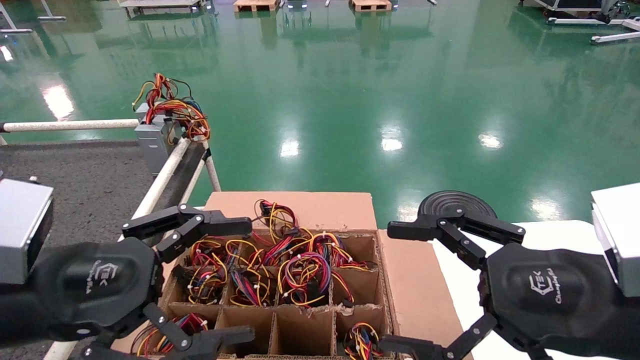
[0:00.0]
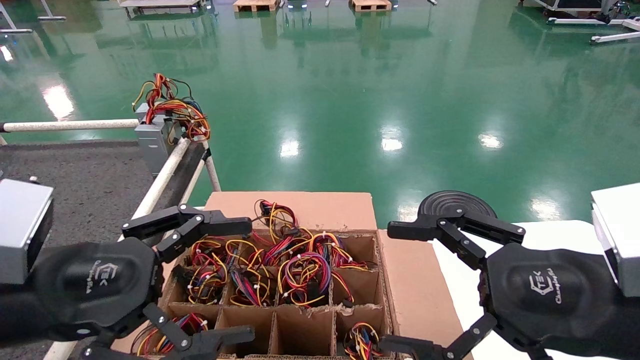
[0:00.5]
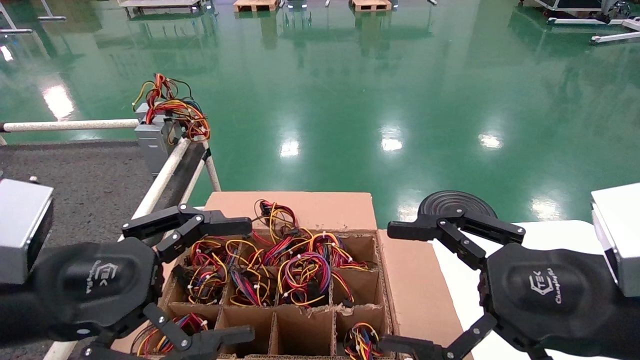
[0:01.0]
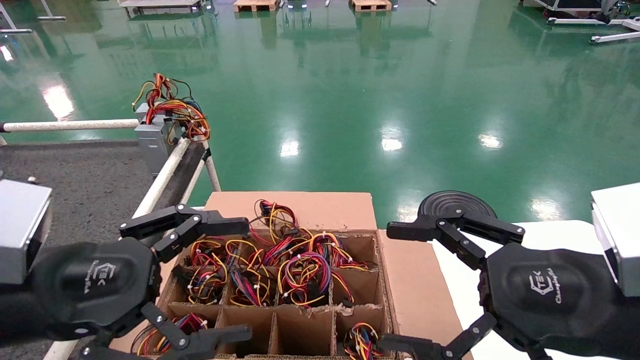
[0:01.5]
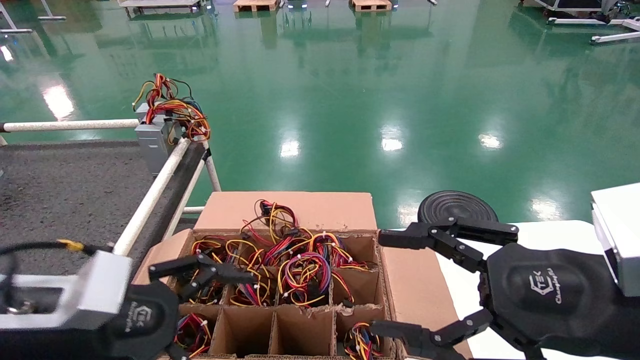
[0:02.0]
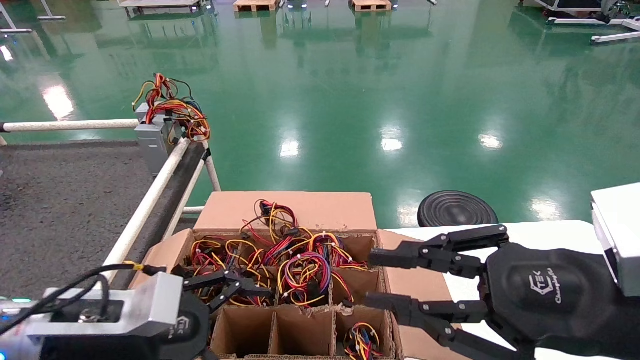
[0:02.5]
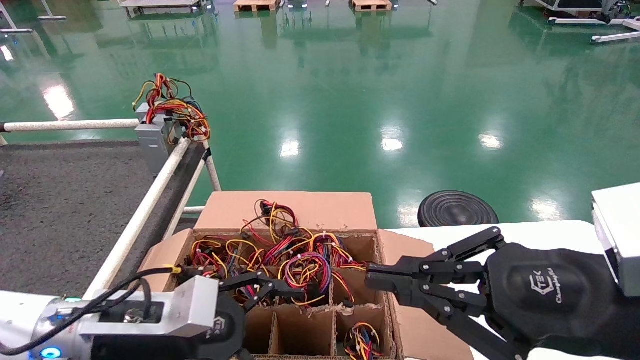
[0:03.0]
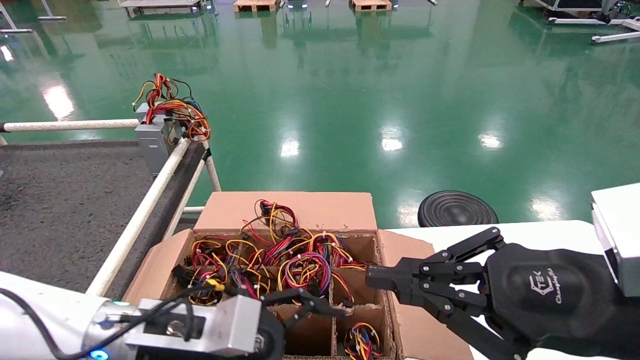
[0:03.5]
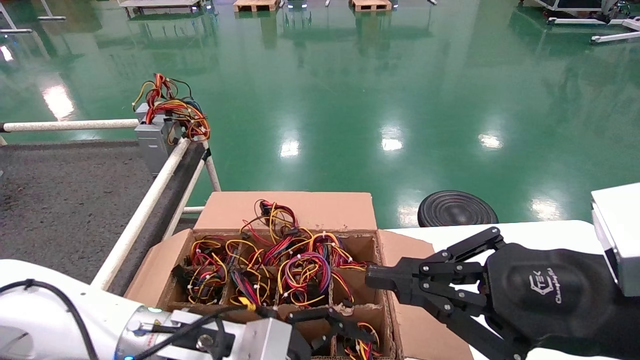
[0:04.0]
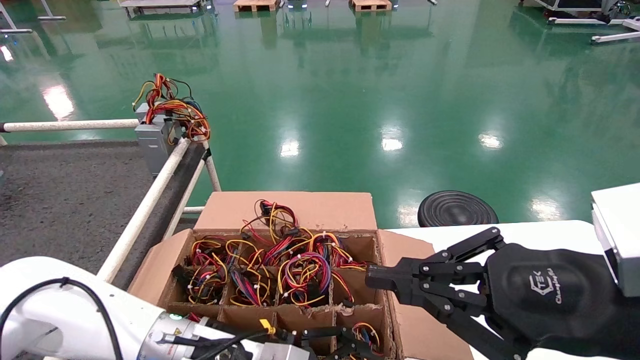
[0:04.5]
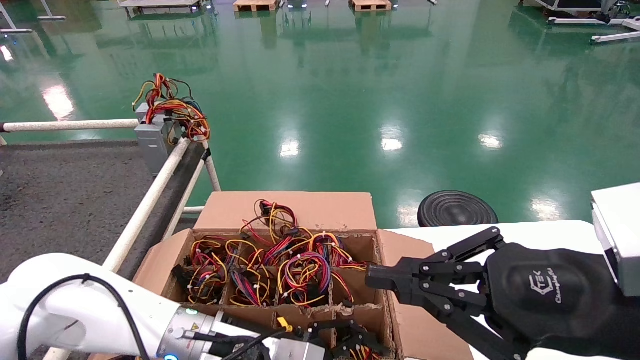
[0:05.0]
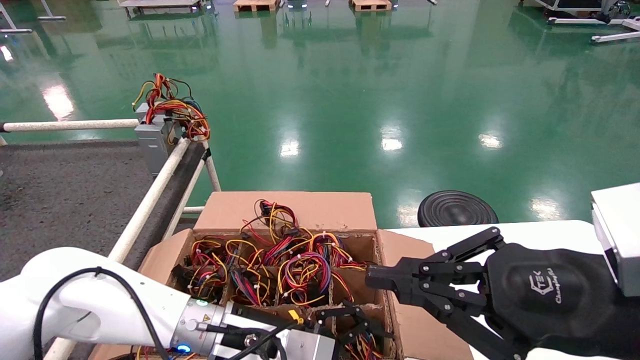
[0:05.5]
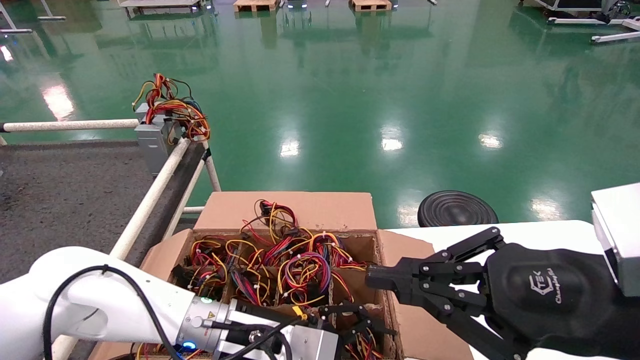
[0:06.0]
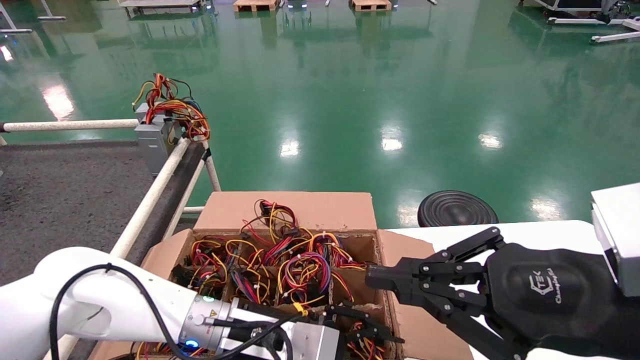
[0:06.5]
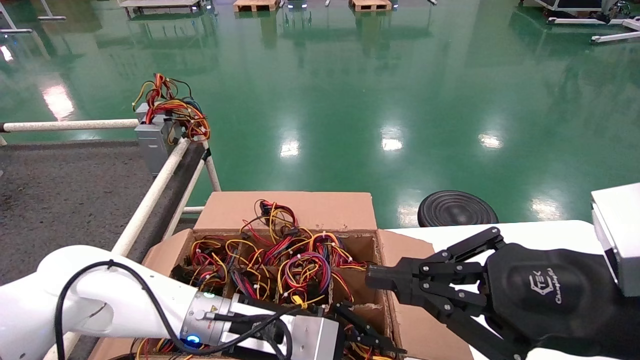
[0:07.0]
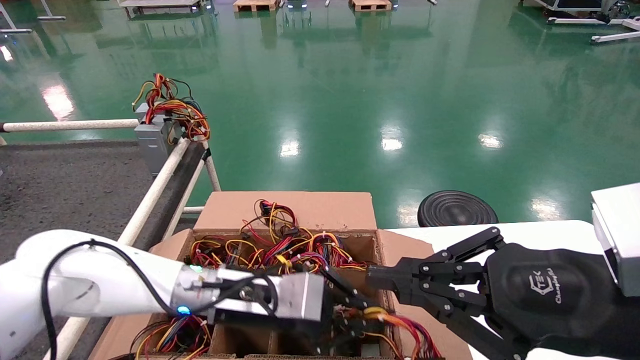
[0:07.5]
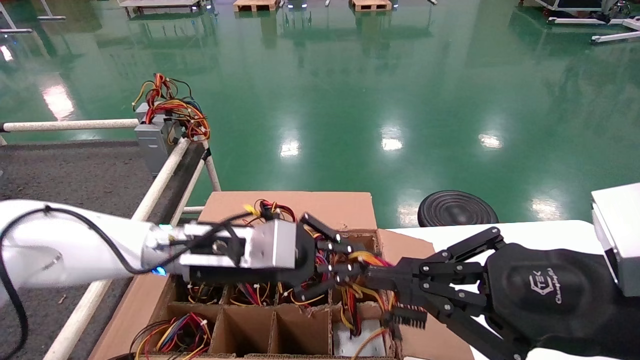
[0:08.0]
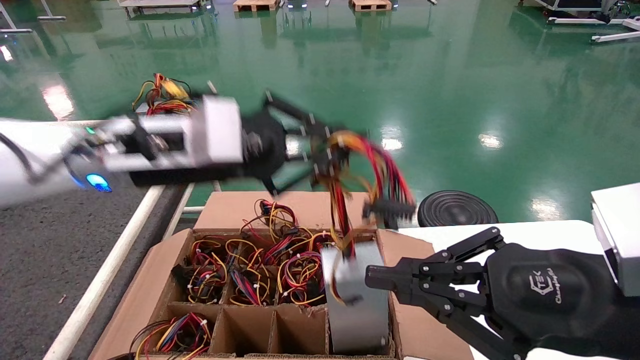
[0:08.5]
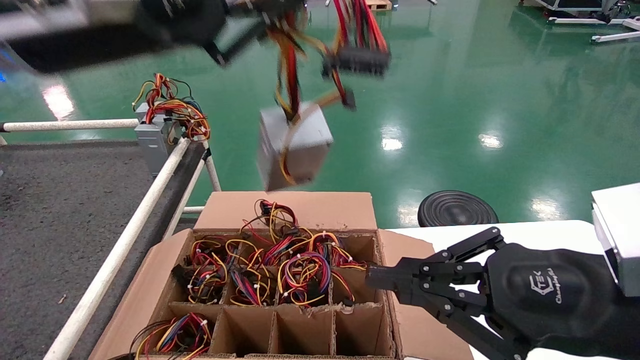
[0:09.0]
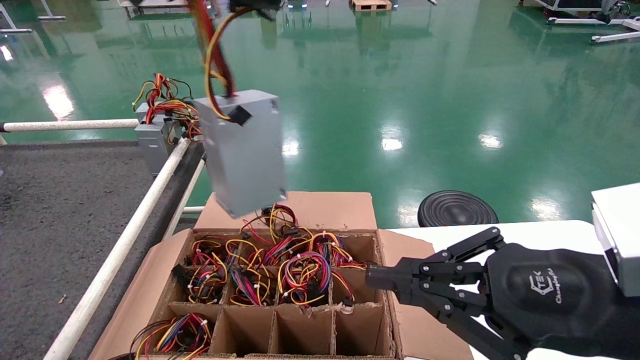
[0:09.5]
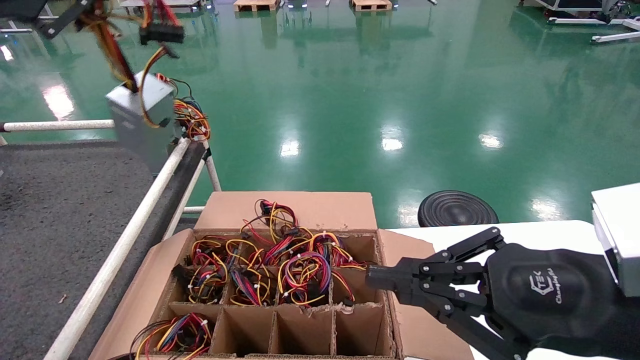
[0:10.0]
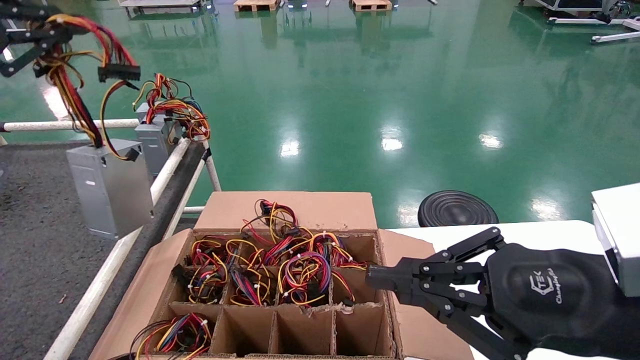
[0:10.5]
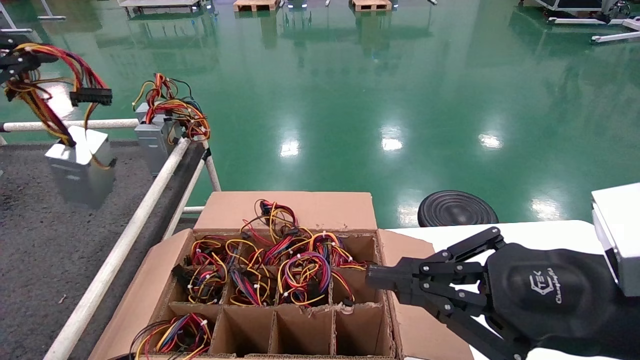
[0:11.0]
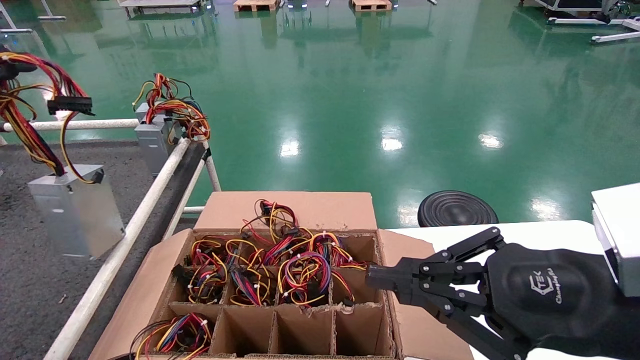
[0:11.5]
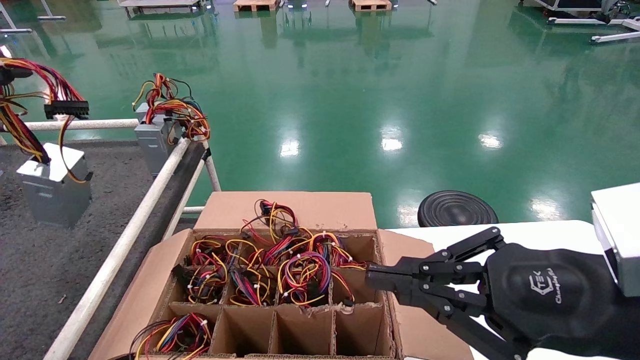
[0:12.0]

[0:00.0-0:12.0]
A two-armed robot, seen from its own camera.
Step, 0:02.0 to 0:07.5: Grab and lift the power supply from the large box.
0:00.0 to 0:02.0: The left gripper shifts by some 5 cm.
0:02.0 to 0:04.0: The right gripper closes its fingers; the left gripper heads to the right, downward and forward, covering some 15 cm.
0:04.0 to 0:06.0: The left gripper ends up approximately 5 cm from where it was.
0:06.0 to 0:08.0: The left gripper heads upward, covering roughly 10 cm, and closes up.
0:08.0 to 0:10.0: The left gripper travels upward and to the left by approximately 35 cm.
0:10.0 to 0:12.0: The left gripper moves to the left and downward, some 10 cm.

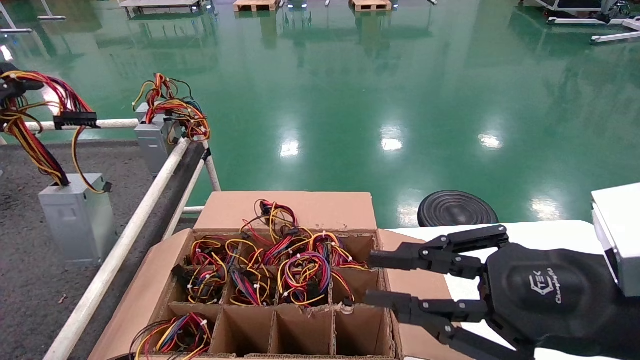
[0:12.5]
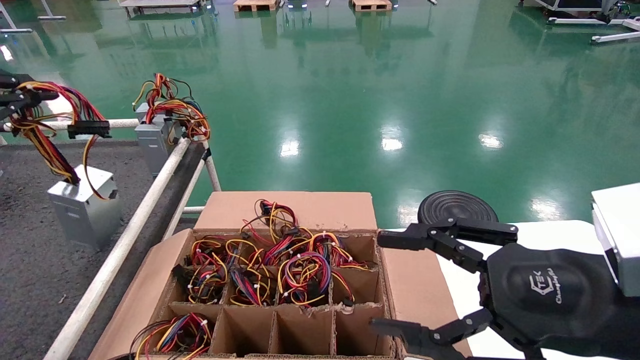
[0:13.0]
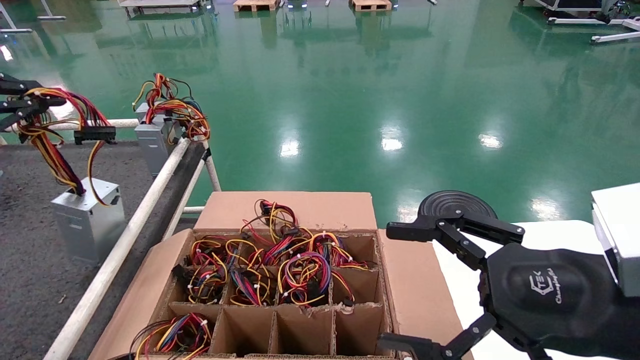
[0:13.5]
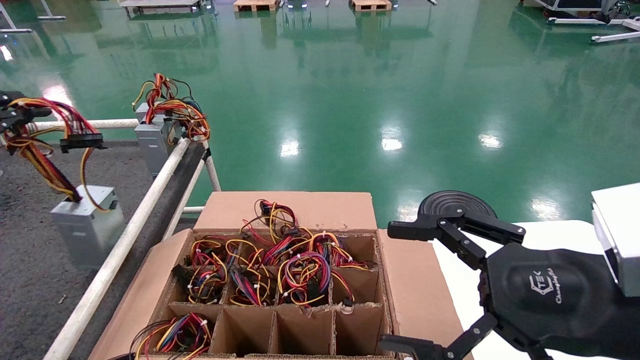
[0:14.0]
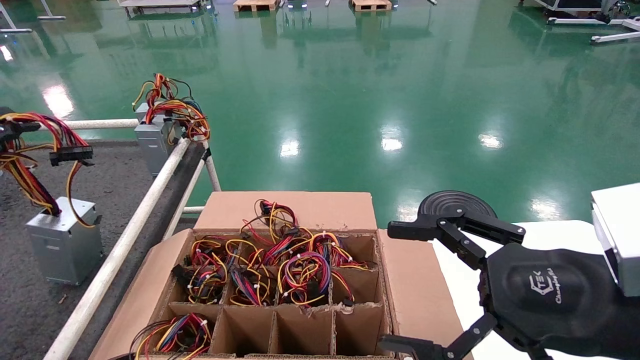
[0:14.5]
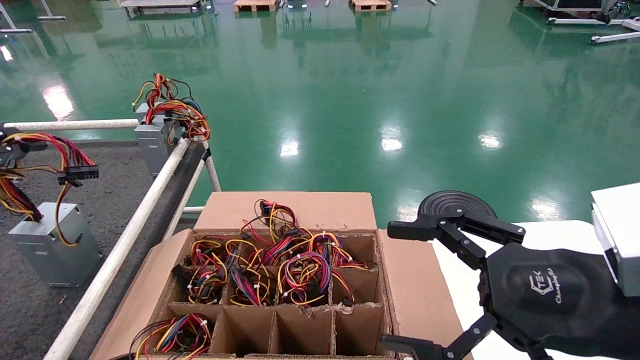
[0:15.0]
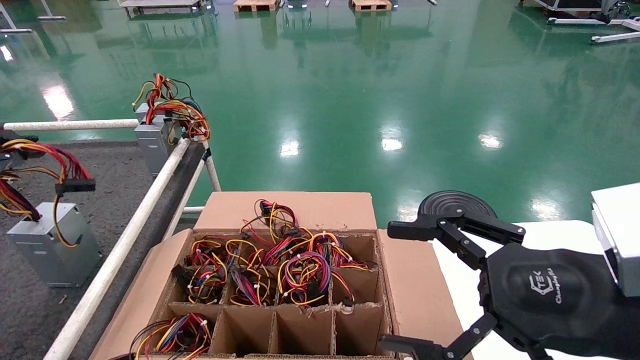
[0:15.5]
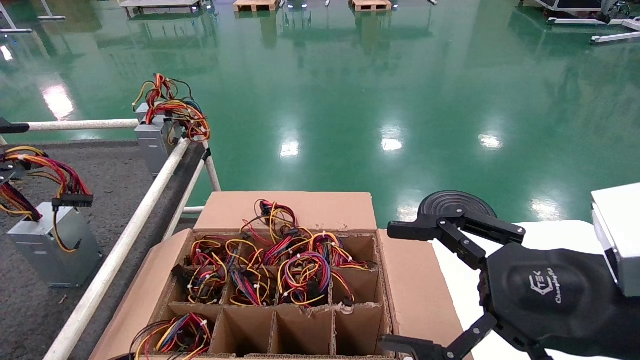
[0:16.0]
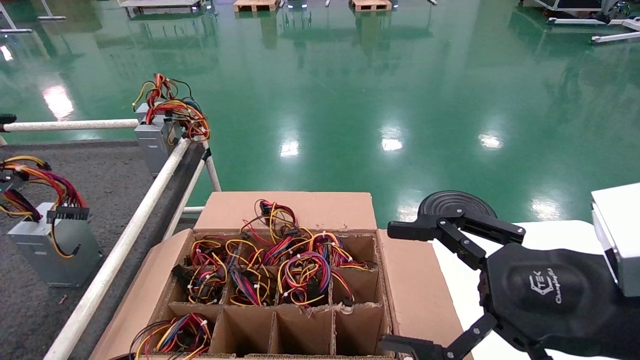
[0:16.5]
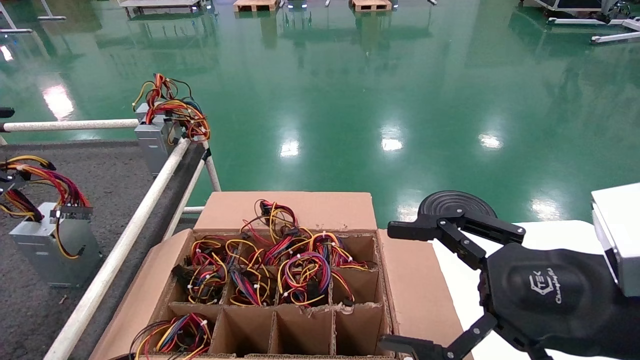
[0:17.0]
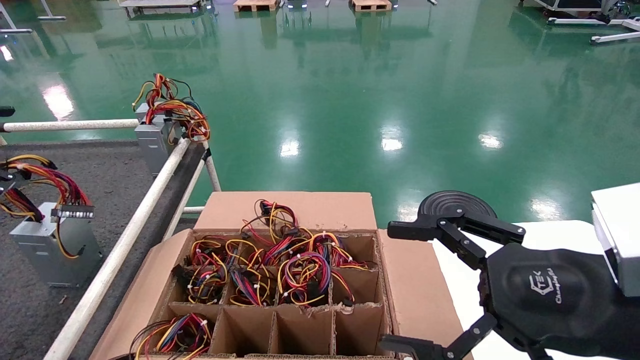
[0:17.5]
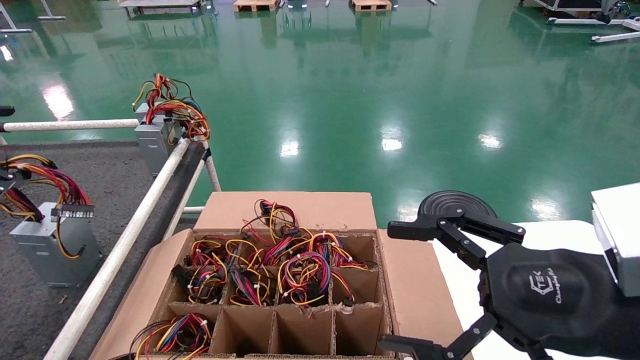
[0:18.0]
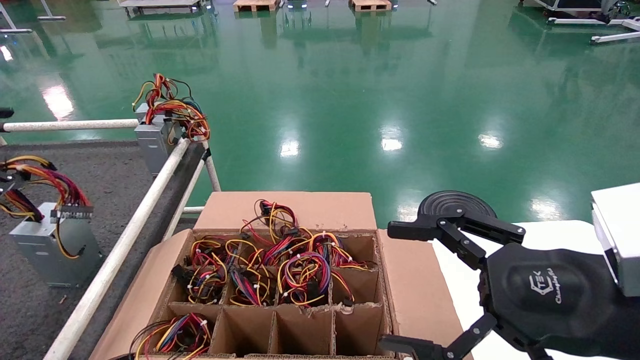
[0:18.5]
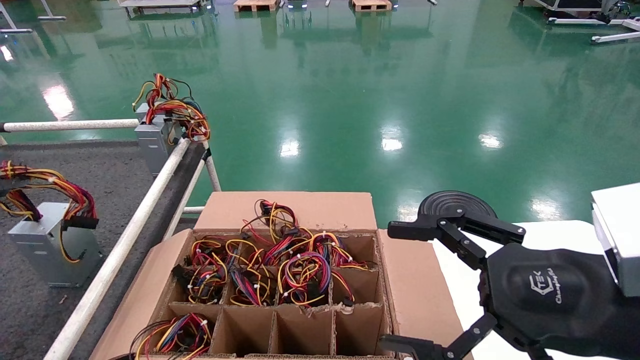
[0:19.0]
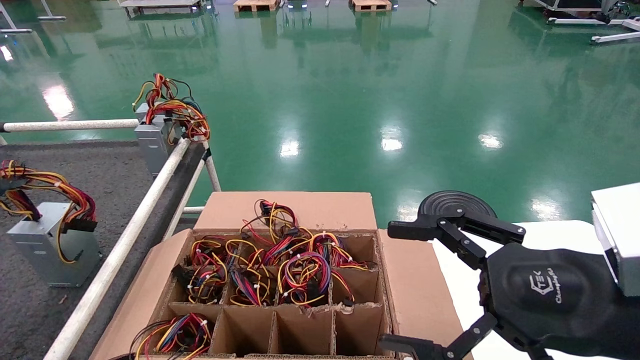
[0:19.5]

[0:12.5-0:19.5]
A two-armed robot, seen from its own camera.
Step, 0:12.5 to 0:15.5: Place the power supply on the operating table.
0:12.5 to 0:14.5: The left gripper heads downward, covering roughly 5 cm. Meanwhile the right gripper opens up.
0:14.5 to 0:16.0: The grippers make only small movements.
0:16.0 to 0:17.5: The left gripper opens.
0:17.5 to 0:19.5: The grippers stay close to where they were, moving slightly.
